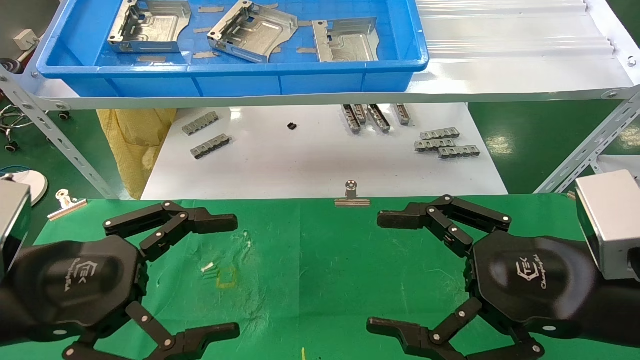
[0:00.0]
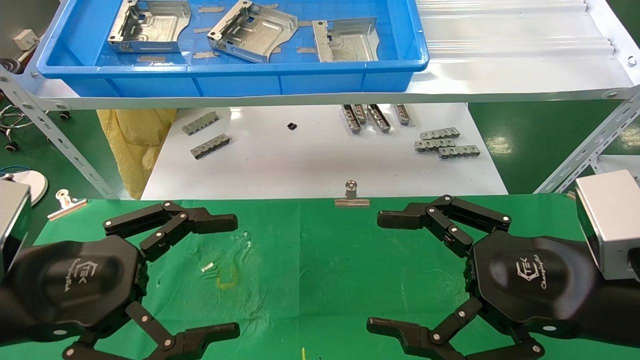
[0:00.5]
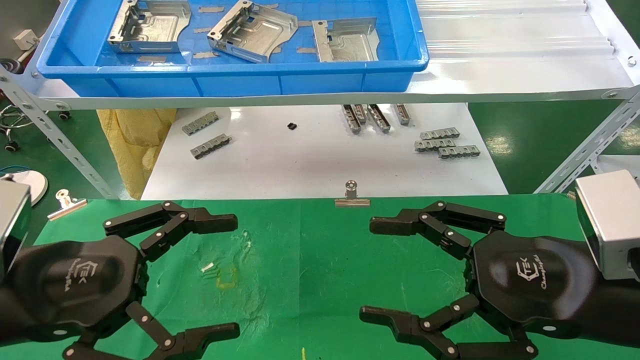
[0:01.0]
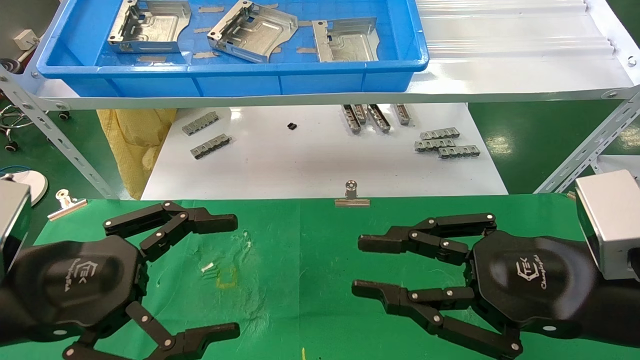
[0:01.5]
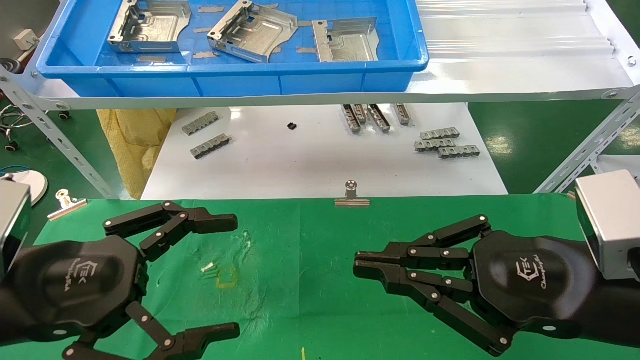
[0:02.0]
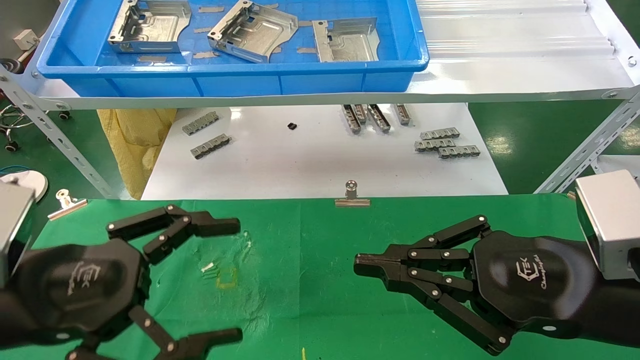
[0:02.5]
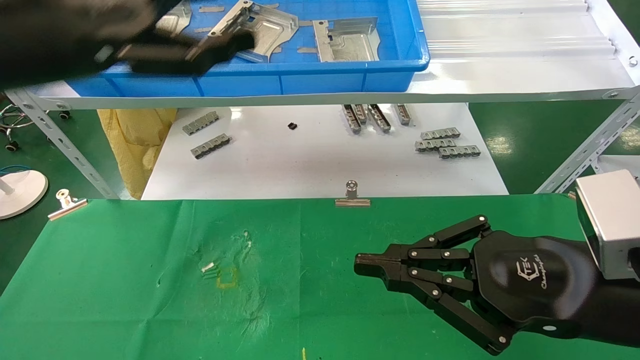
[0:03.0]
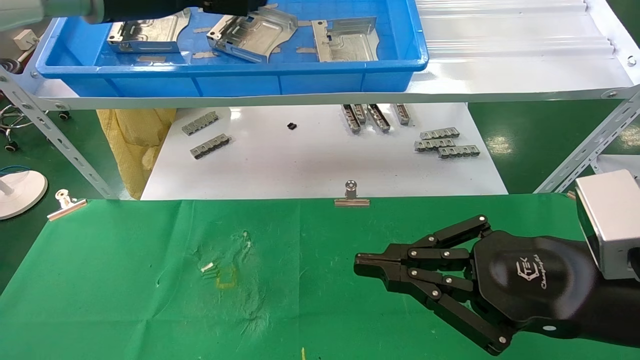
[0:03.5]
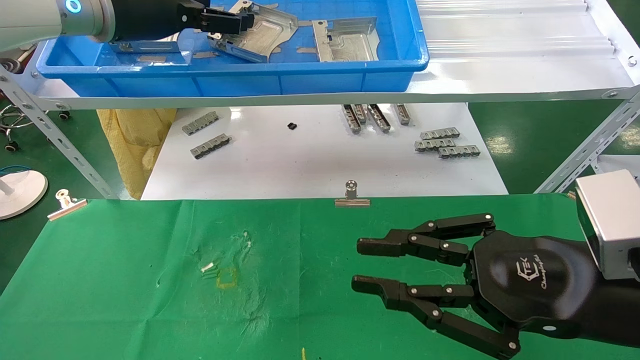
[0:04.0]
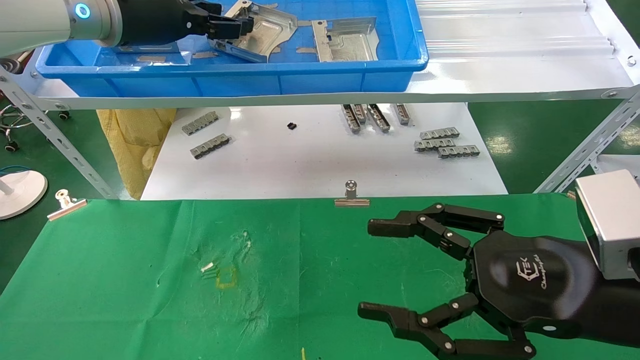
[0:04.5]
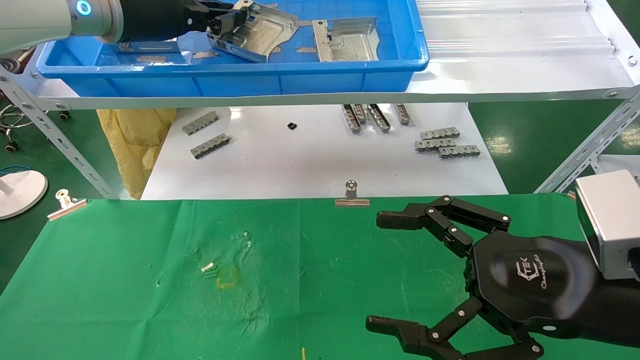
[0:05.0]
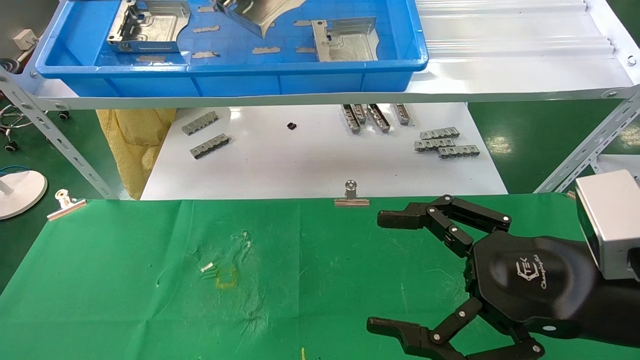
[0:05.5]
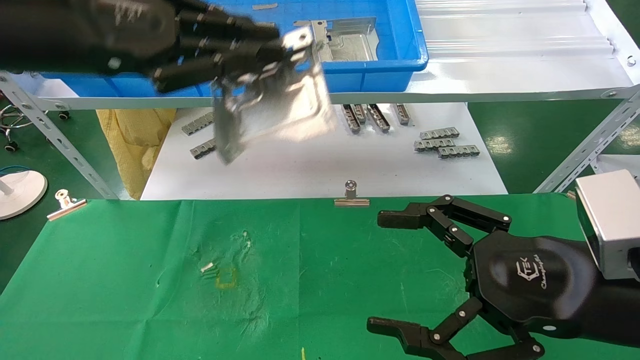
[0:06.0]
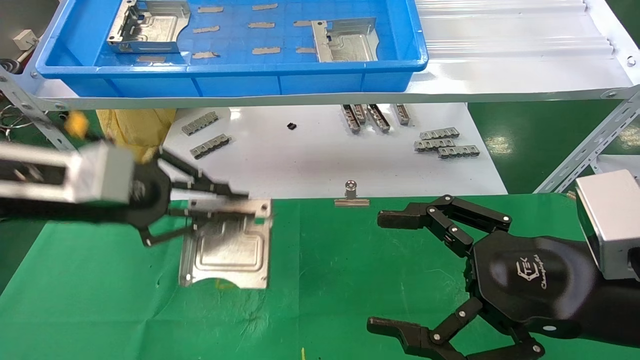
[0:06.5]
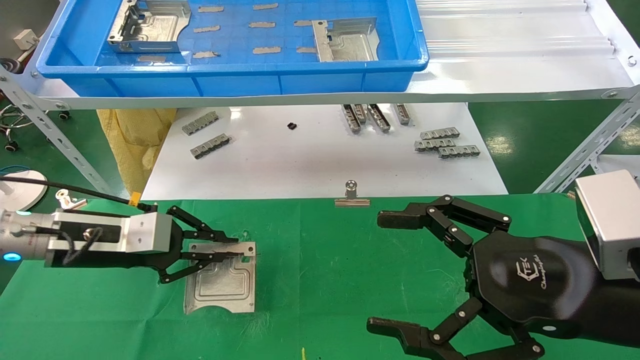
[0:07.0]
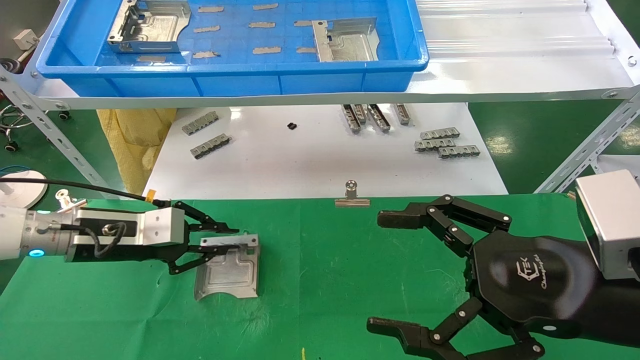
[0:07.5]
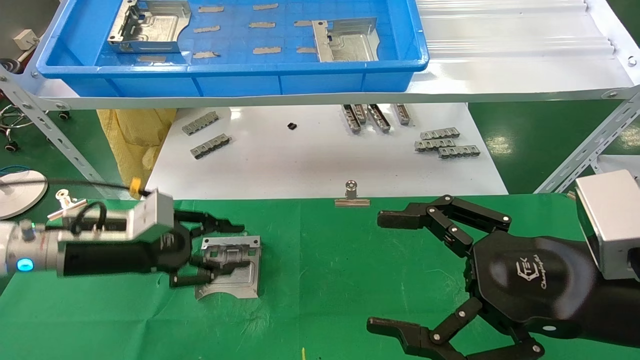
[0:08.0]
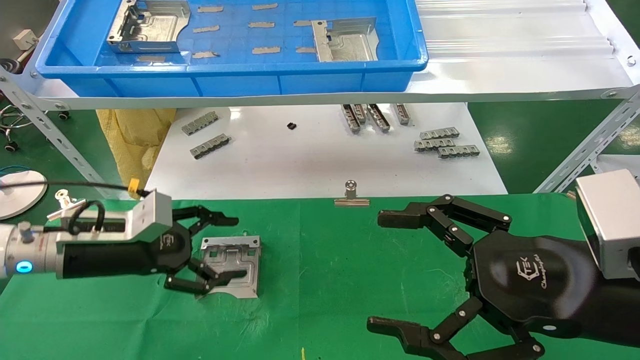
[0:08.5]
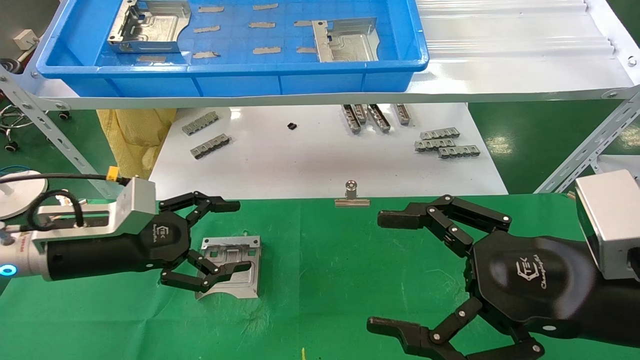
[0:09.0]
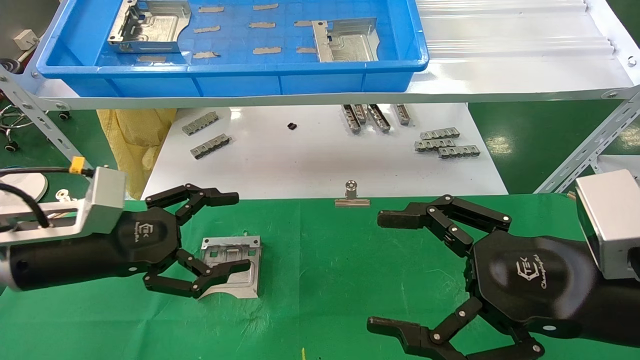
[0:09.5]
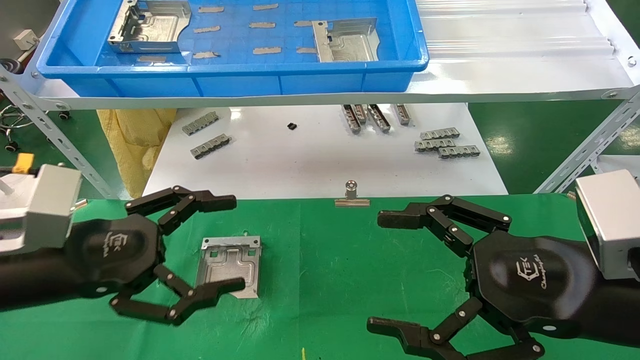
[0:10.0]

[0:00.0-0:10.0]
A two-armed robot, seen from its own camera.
Task of the whole recording: use the mechanical arm to pick up the parts and place them on the table.
Step, 0:03.0 to 0:05.0: Pick up the hard drive bracket from the feeding area.
Step, 0:05.5 to 0:07.5: Place the hard drive bracket into the box.
0:00.0 to 0:02.0: The right gripper closes.
0:02.0 to 0:04.0: The left gripper travels upward and forward by about 30 cm.
0:04.0 to 0:06.0: The right gripper opens its fingers, while the left gripper heads backward, covering about 15 cm, and closes its fingers.
0:06.0 to 0:08.0: The left gripper heads downward, covering some 25 cm.
0:08.0 to 0:10.0: The left gripper is displaced backward by roughly 10 cm, and opens its fingers.

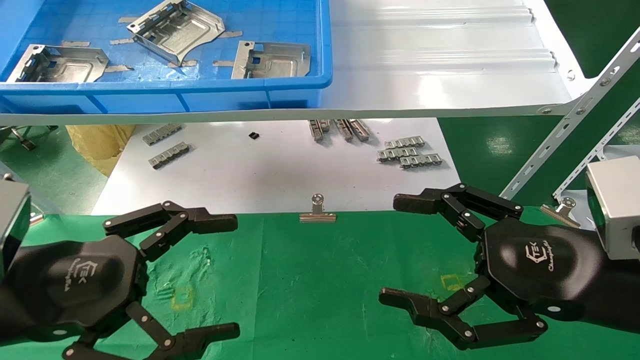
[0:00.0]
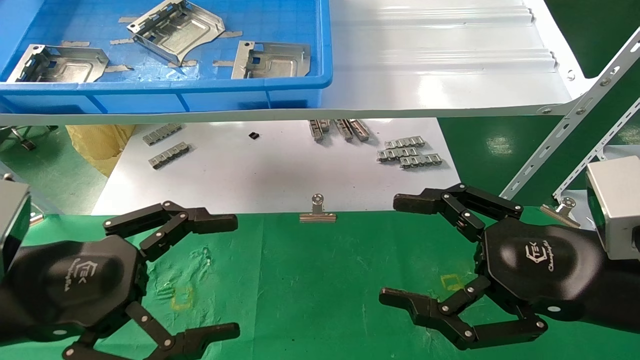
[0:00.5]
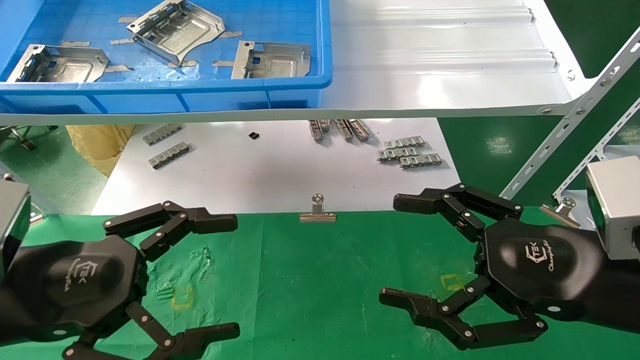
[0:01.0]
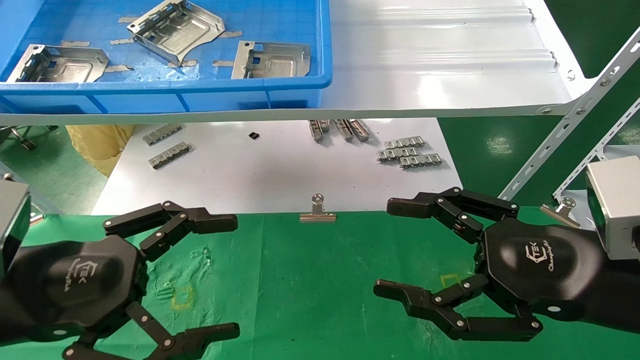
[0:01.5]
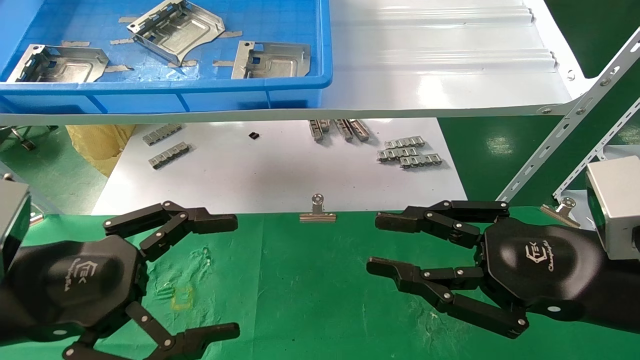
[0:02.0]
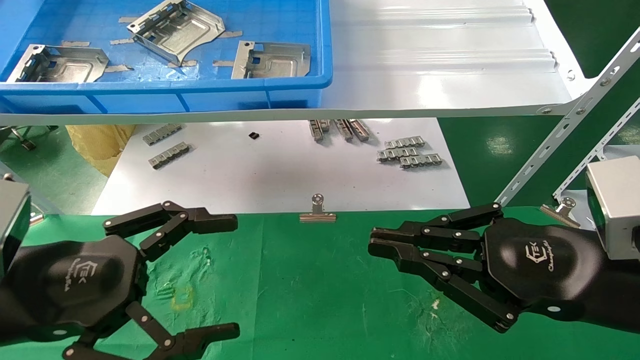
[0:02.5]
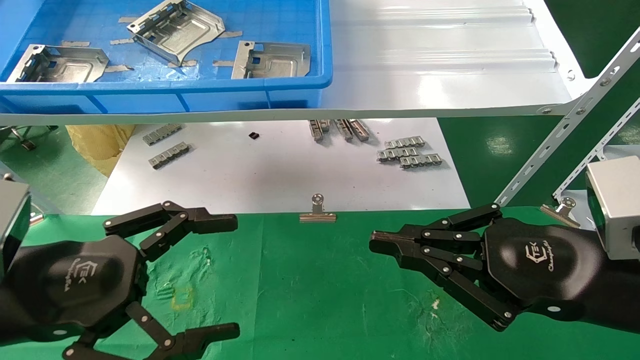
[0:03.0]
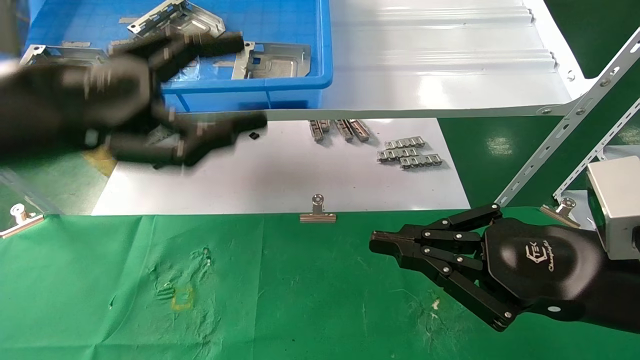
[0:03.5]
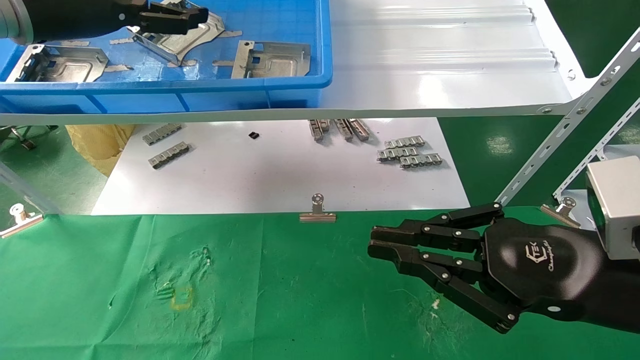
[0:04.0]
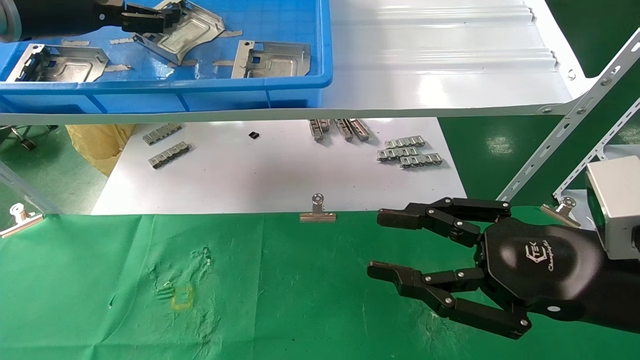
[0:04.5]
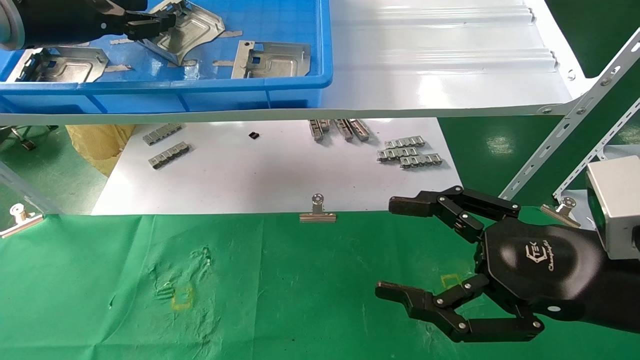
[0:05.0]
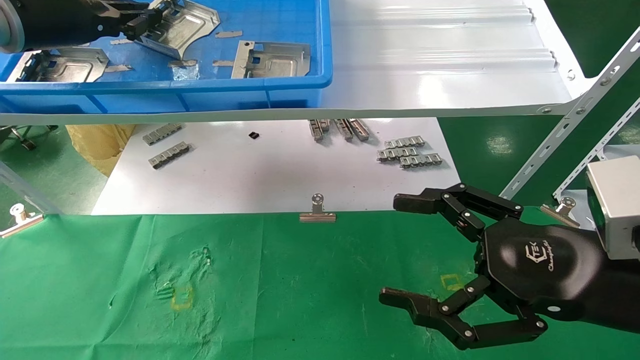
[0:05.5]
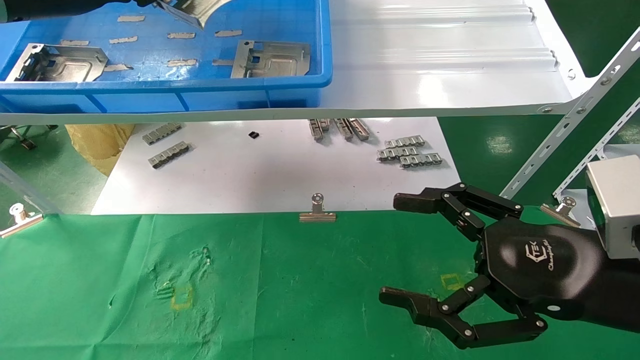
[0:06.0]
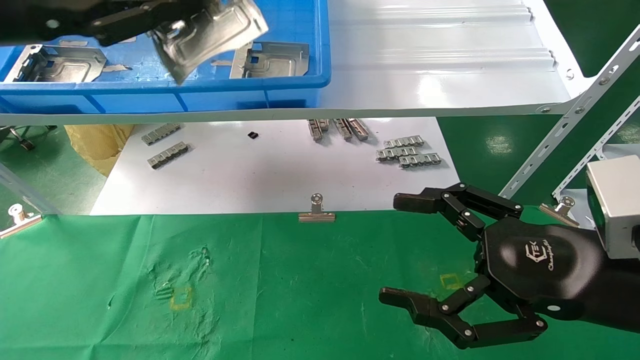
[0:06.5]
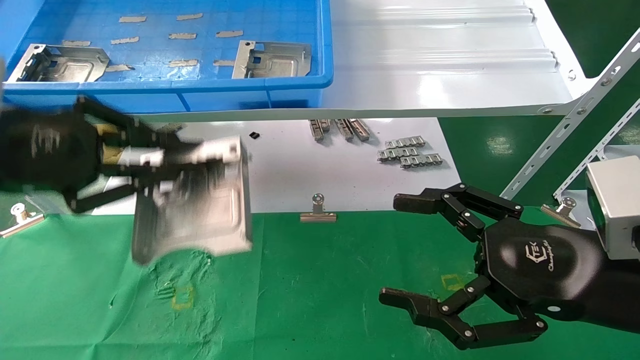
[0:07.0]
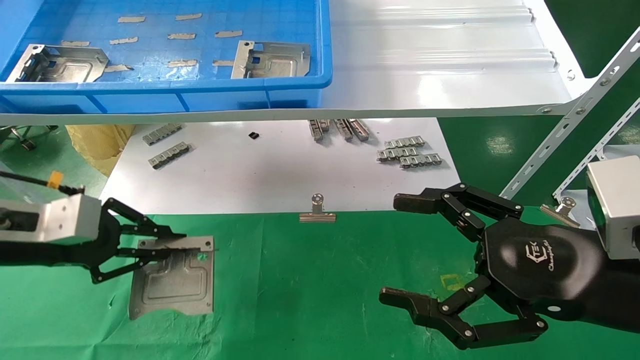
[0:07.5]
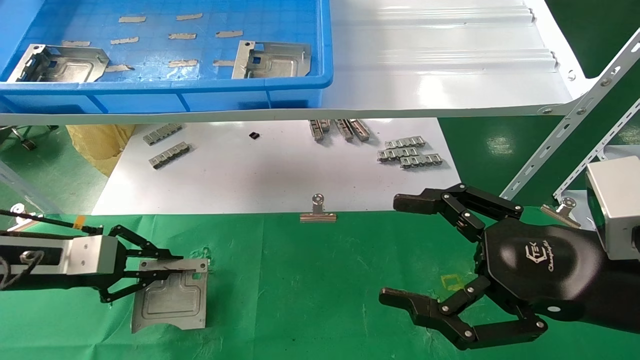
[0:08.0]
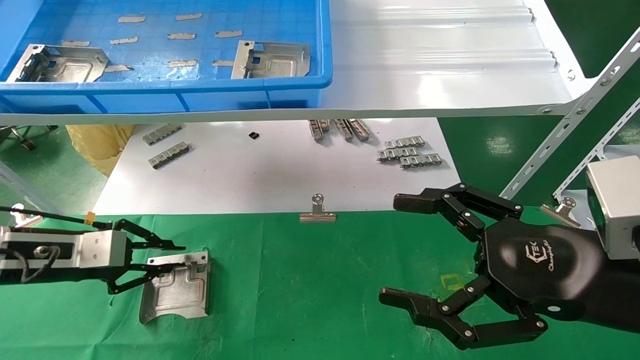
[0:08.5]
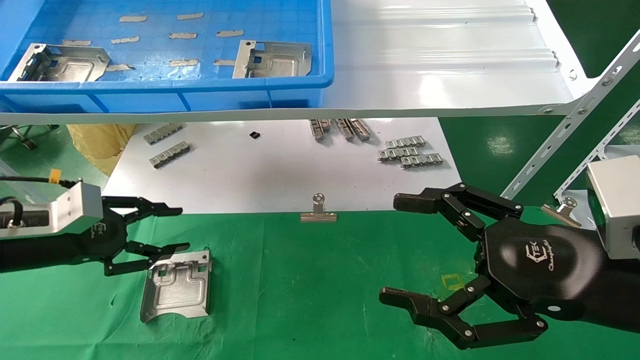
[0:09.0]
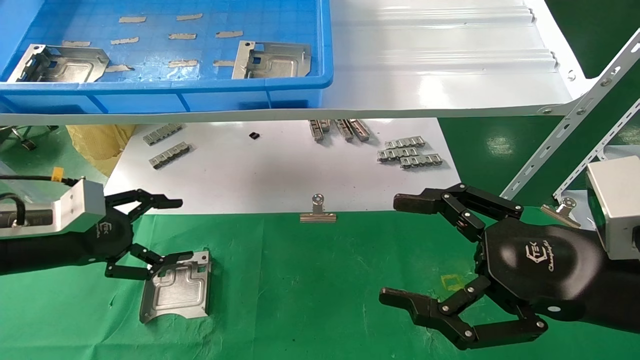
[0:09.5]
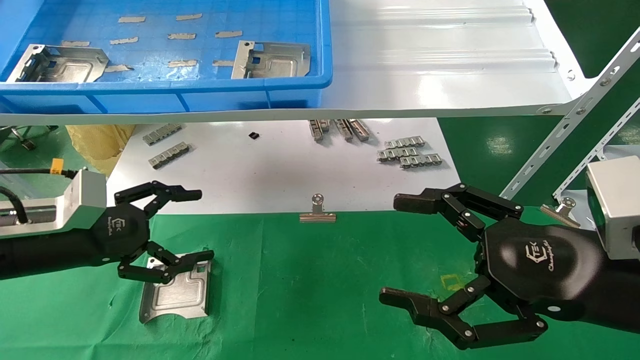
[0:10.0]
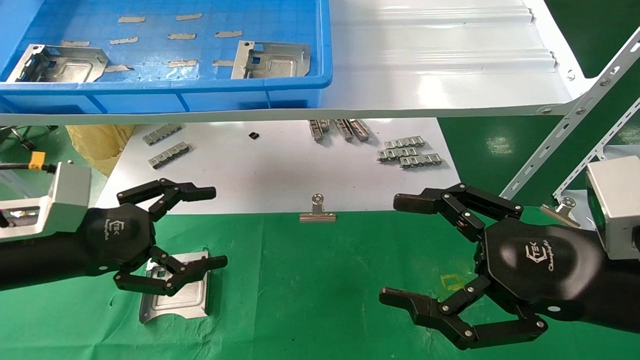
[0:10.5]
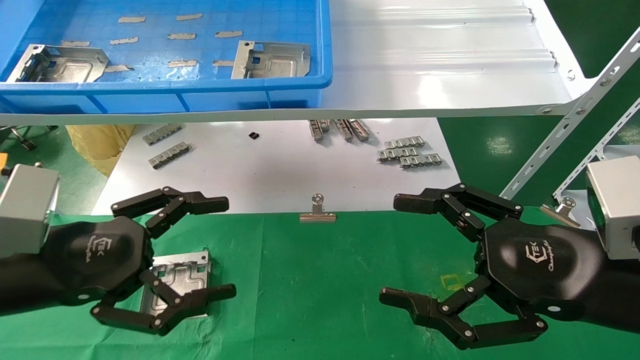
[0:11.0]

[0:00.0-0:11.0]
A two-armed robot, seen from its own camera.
Task of the whole recording: use the mechanical arm to pick up the parts and place them on the table.
Step, 0:03.5 to 0:05.5: Pick up the hard drive bracket from the feeding area.
Step, 0:06.0 to 0:08.5: Place the hard drive bracket into the box.
0:00.0 to 0:02.0: The right gripper closes up.
0:02.0 to 0:03.5: The left gripper moves upward and forward, about 15 cm, while the right gripper closes up.
0:03.5 to 0:05.5: The left gripper moves forward, upward and to the left, about 20 cm, and closes up. The right gripper opens.
0:05.5 to 0:07.5: The left gripper moves downward and backward, roughly 25 cm.
0:07.5 to 0:09.0: The left gripper shifts by approximately 5 cm.
0:09.0 to 0:11.0: The left gripper goes roughly 15 cm backward and to the right, and opens.
